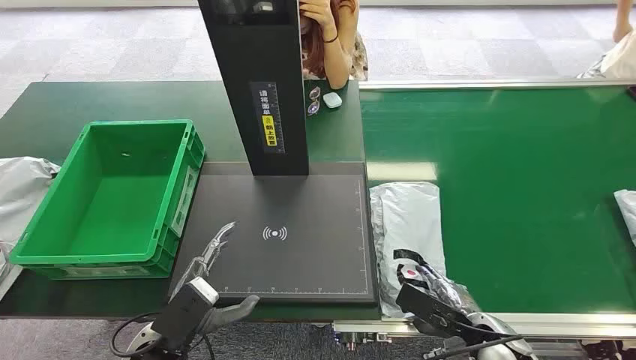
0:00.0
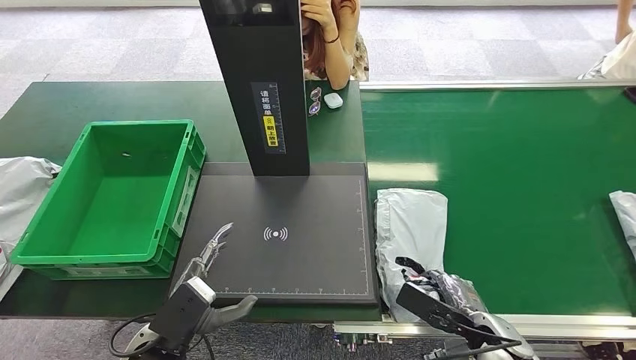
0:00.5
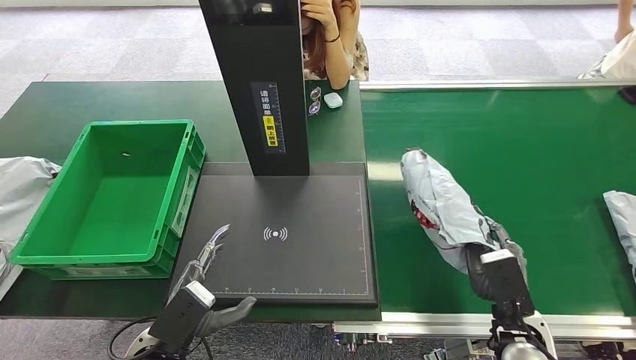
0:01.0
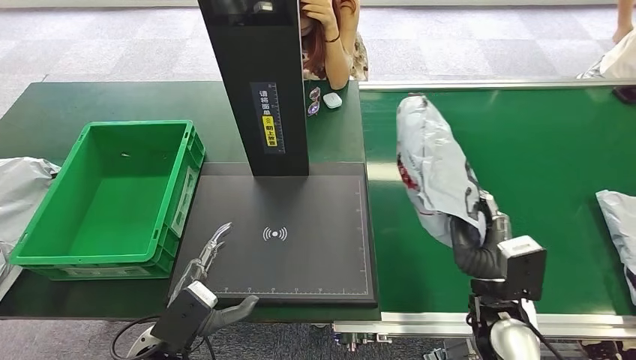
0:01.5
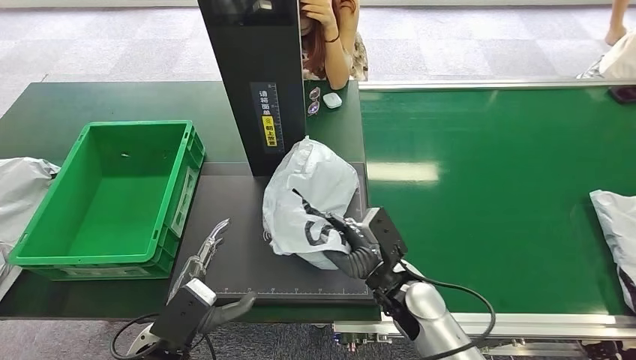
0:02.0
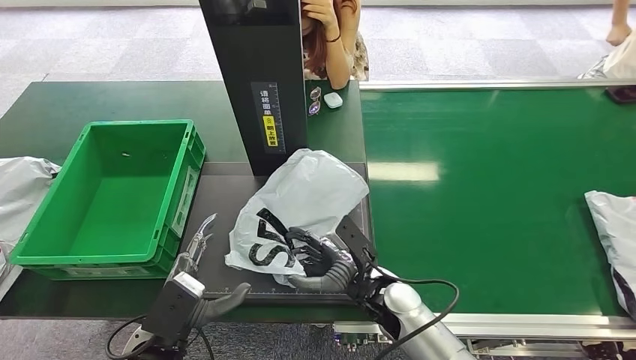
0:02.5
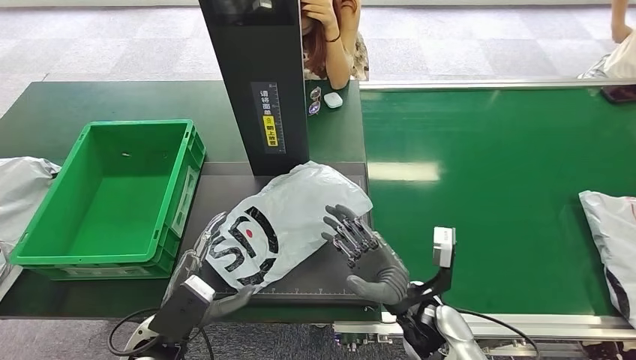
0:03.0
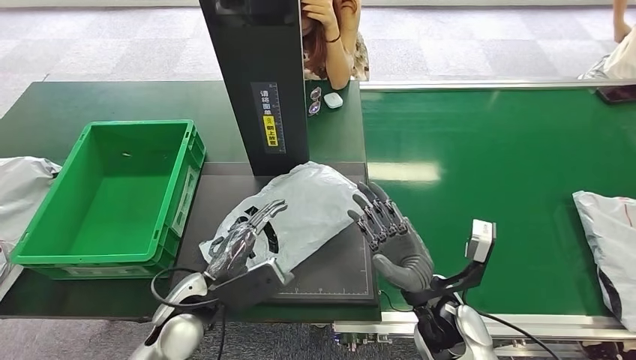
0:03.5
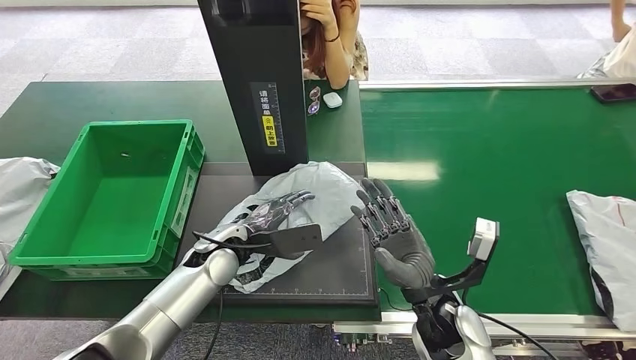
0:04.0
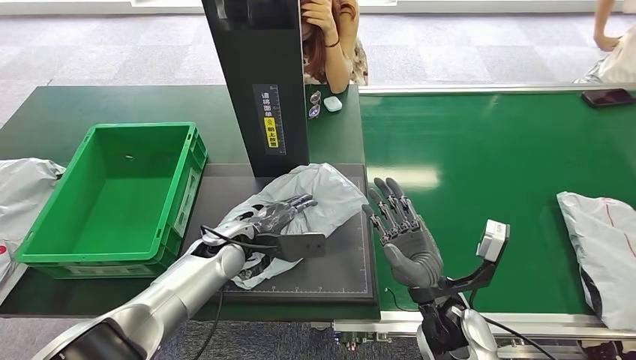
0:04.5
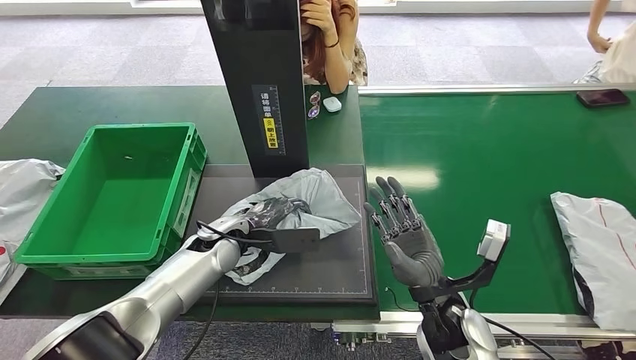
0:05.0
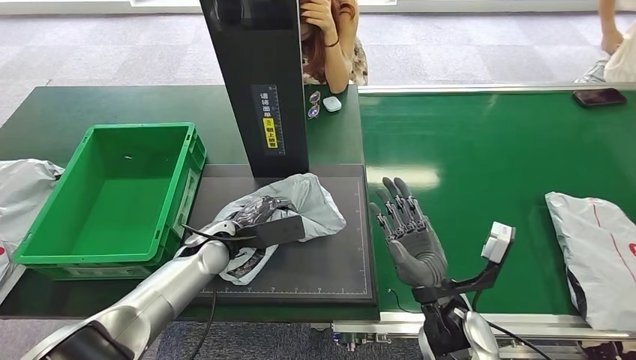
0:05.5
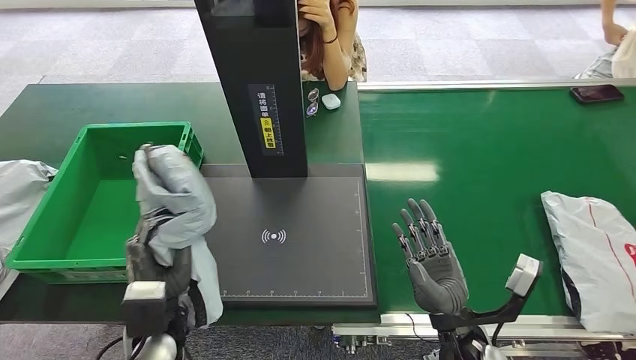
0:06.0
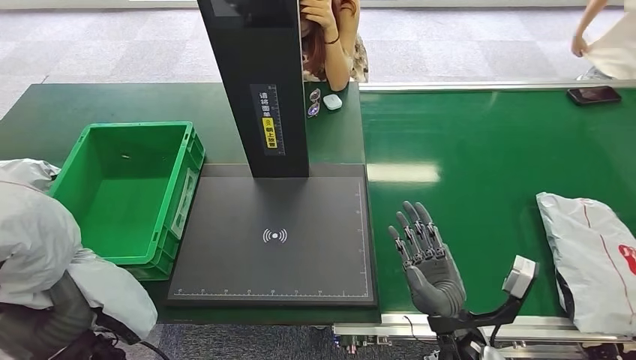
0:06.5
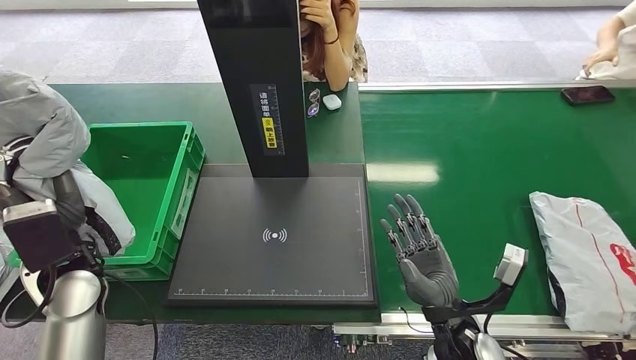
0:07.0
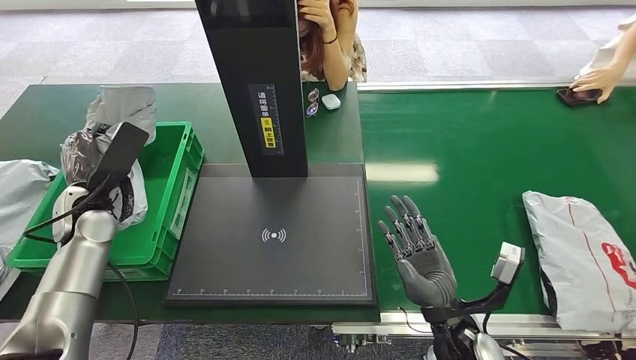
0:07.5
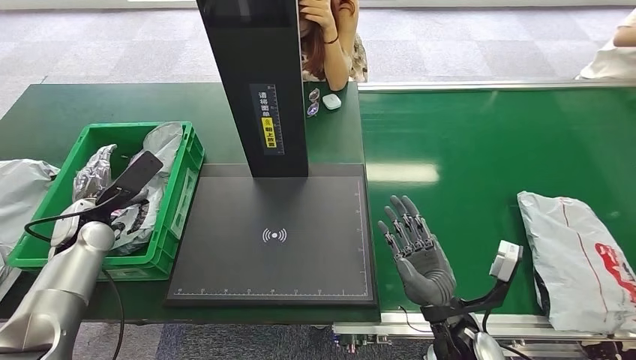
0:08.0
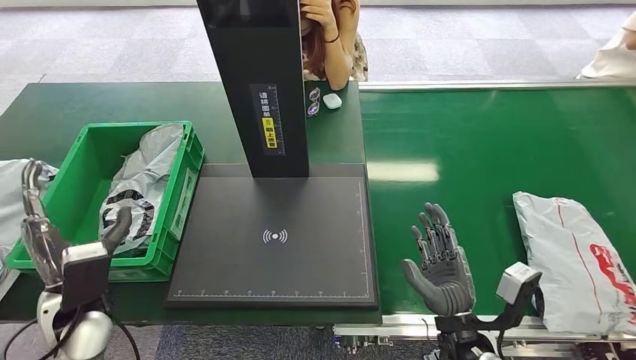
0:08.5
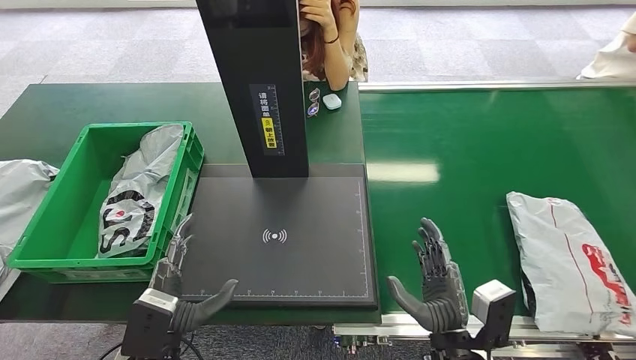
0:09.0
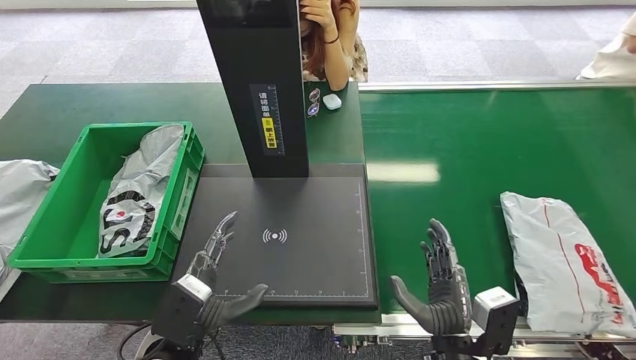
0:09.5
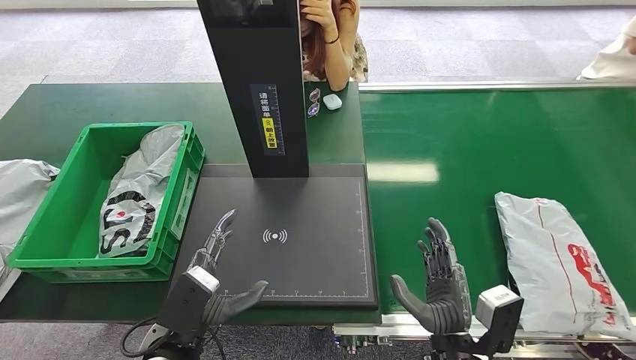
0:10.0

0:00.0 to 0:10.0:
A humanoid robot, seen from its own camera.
Step, 0:00.0 to 0:01.5: Pick up the package from the conveyor belt.
Step, 0:02.0 to 0:03.0: Place the package onto the inbound machine.
Step, 0:03.5 to 0:06.0: Pick up the package from the inbound machine.
Step, 0:06.5 to 0:10.0: Place the package into the parcel locker.
0:02.0 to 0:04.0: The right hand ends up roughly 5 cm from where it was. Meanwhile the left hand shifts about 20 cm forward and to the right.
0:08.0 to 0:10.0: The left hand travels to the right and backward by approximately 30 cm, while the right hand shifts approximately 5 cm backward.
